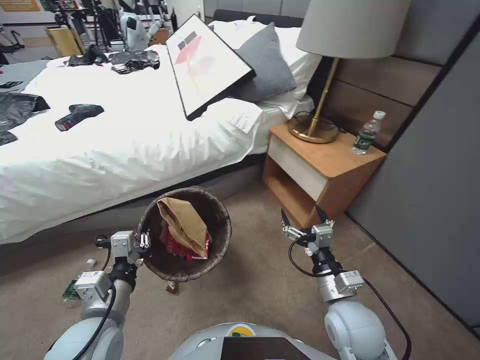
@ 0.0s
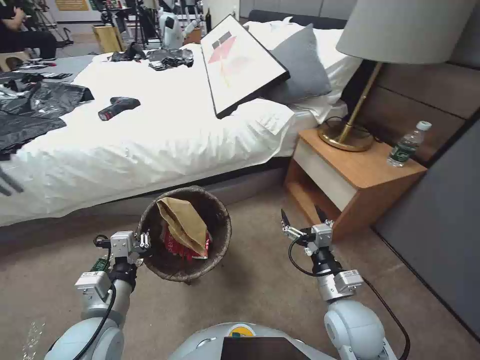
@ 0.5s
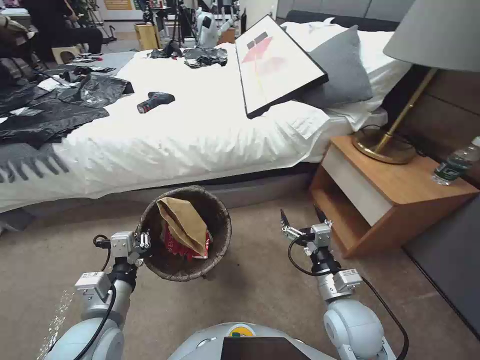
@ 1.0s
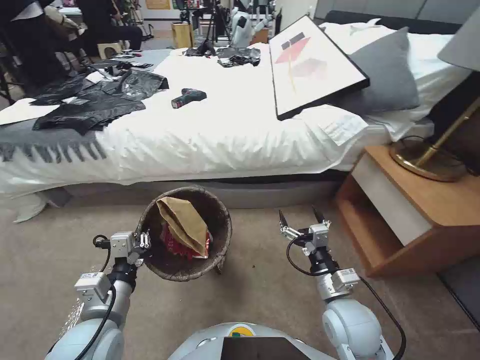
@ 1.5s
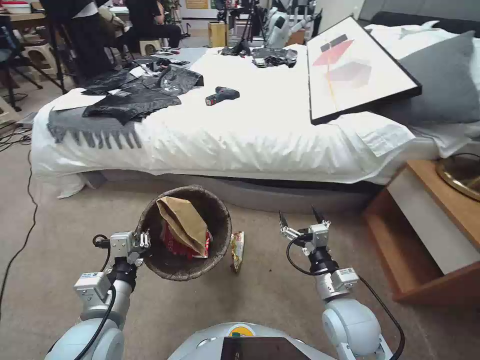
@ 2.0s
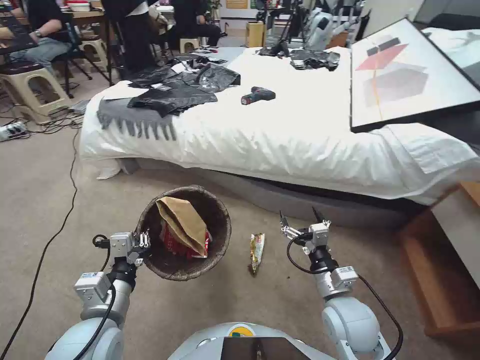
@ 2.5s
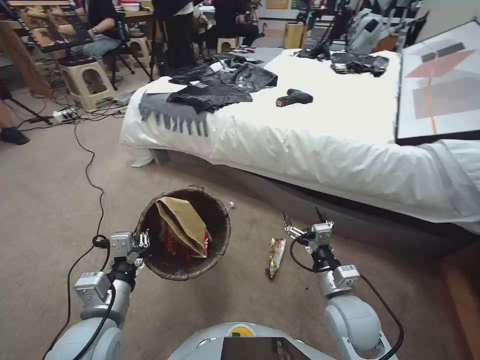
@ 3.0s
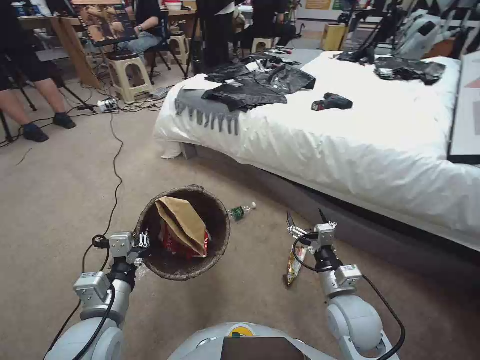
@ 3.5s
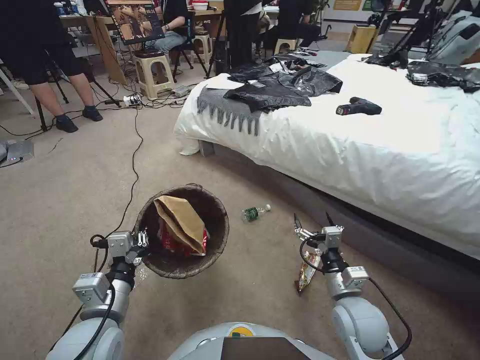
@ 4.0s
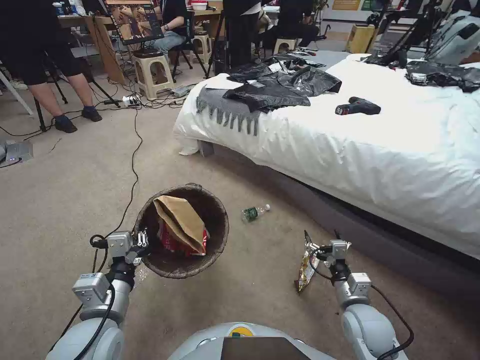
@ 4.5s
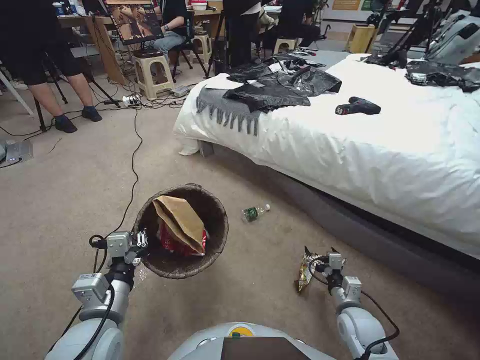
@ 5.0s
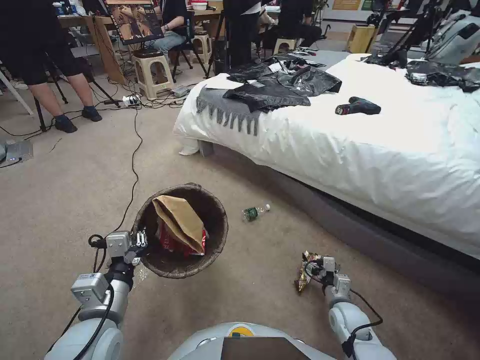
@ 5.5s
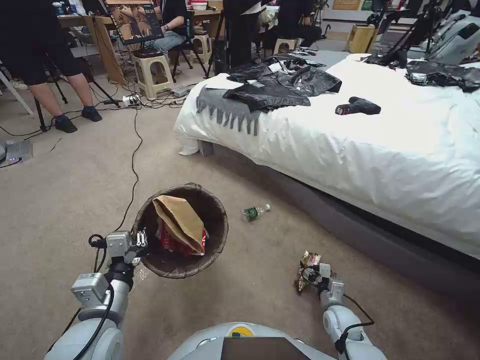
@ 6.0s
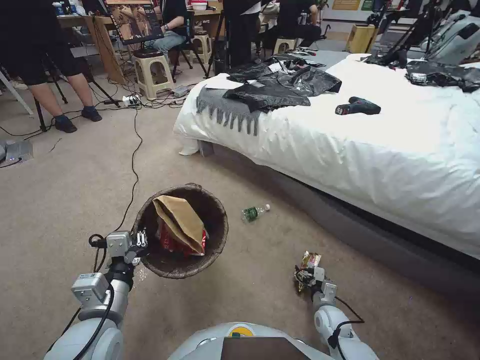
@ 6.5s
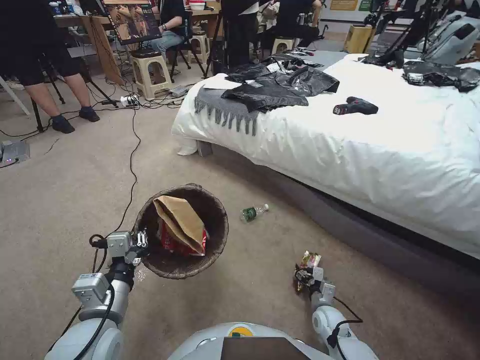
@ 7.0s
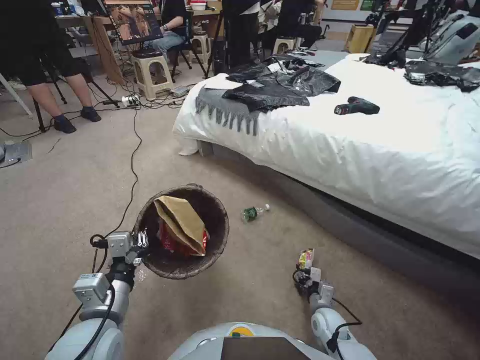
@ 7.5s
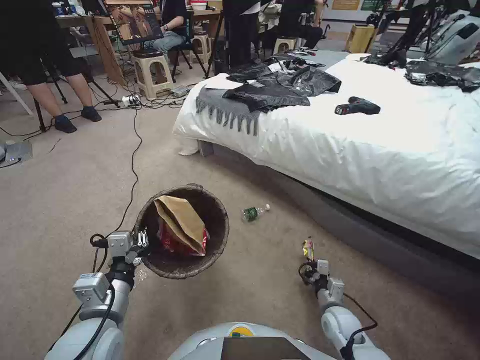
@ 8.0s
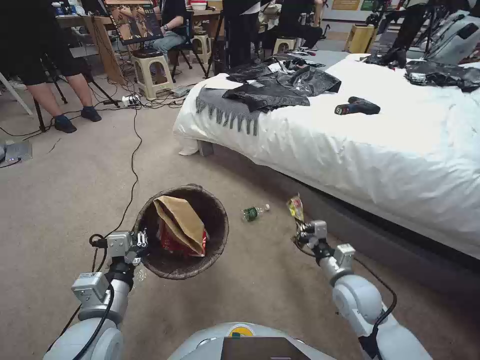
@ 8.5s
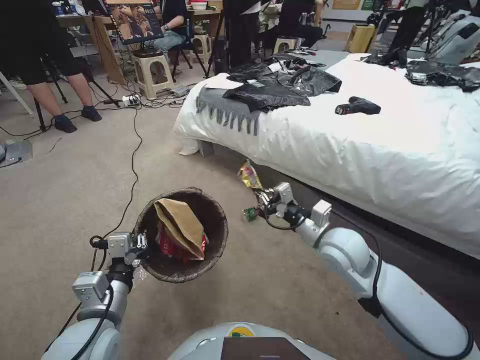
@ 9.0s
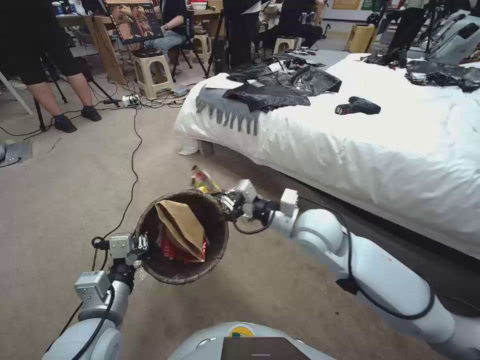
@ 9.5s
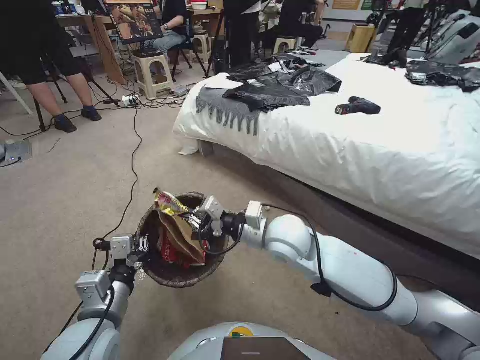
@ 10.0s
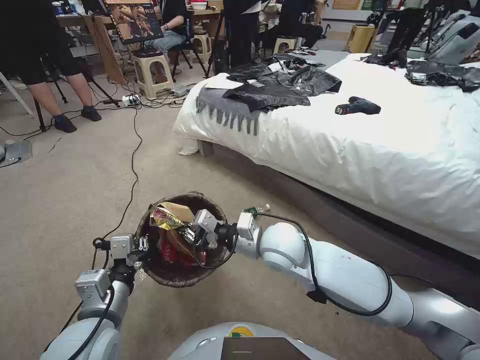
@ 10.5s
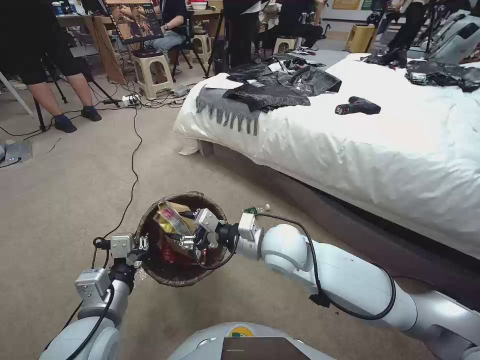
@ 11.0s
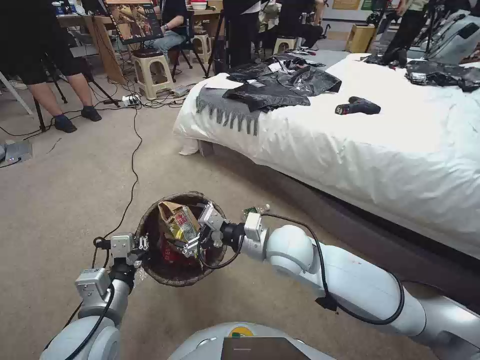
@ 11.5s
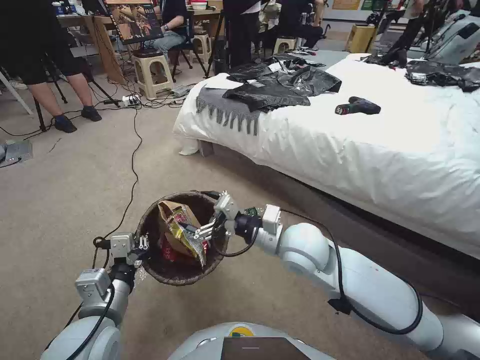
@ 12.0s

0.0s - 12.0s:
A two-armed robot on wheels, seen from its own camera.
Task of the whole recording: Pick up the trash bin, then pick up the garbage from the floor and place it into the trash bin.
4.0s - 6.0s: The right gripper heads downward, covering approximately 20 cm.
6.0s - 8.0s: The right gripper closes its fingers.
8.0s - 10.0s: The right gripper is displaced upward and to the left by some 40 cm.
10.0s - 12.0s: The right gripper opens its fingers.

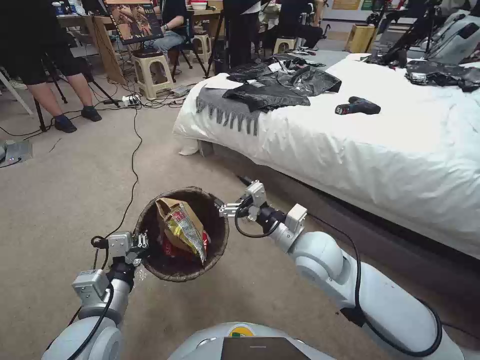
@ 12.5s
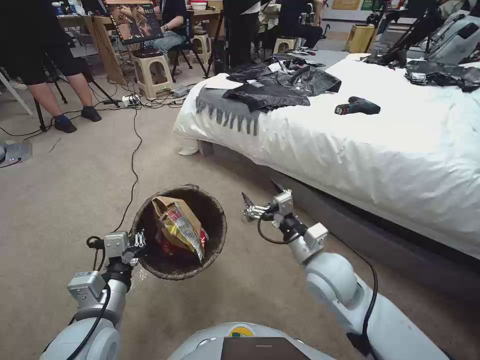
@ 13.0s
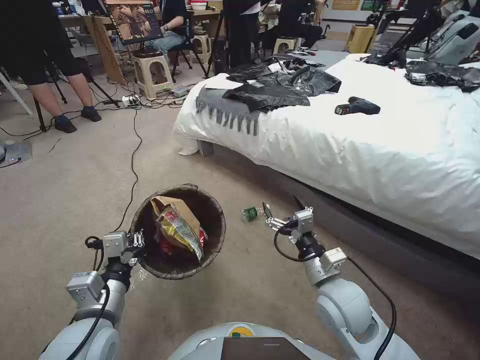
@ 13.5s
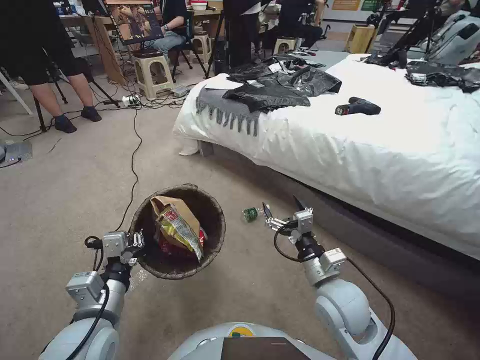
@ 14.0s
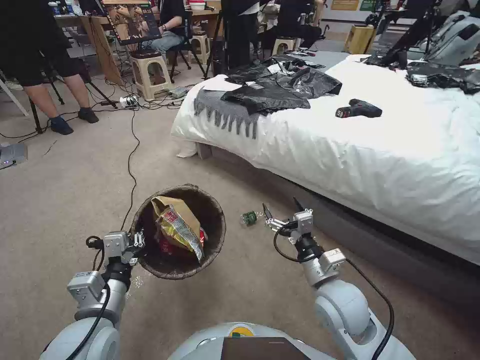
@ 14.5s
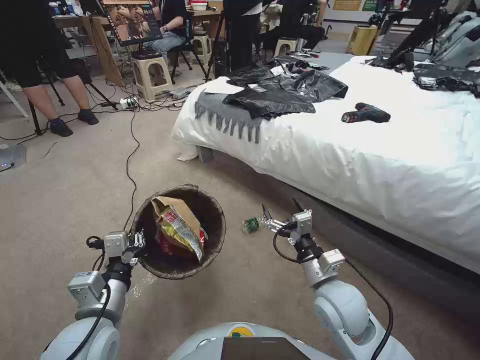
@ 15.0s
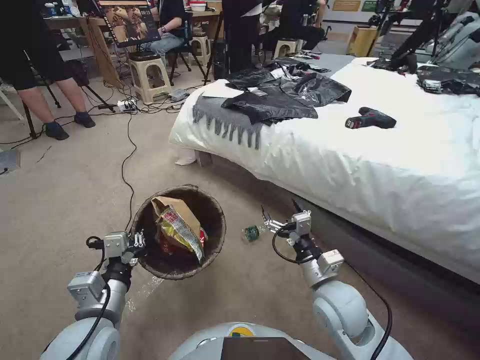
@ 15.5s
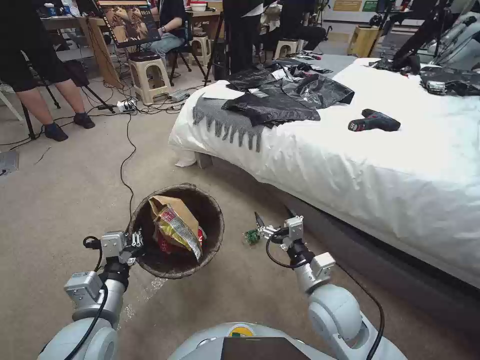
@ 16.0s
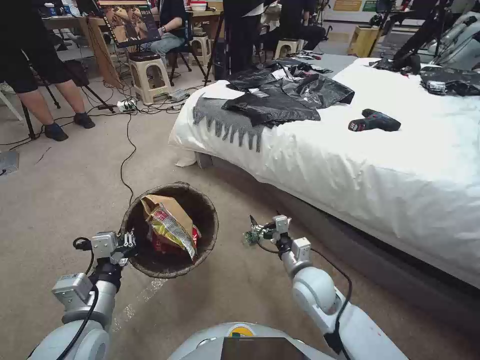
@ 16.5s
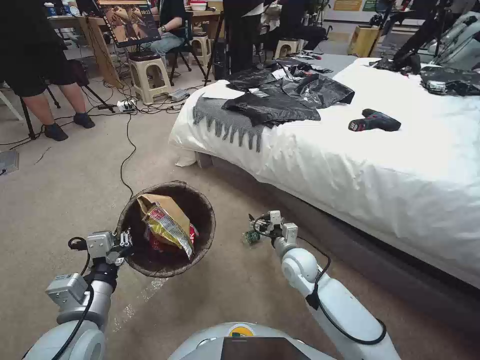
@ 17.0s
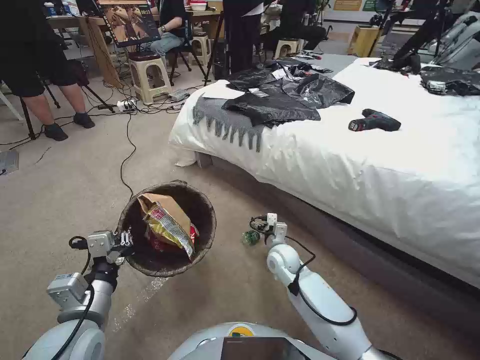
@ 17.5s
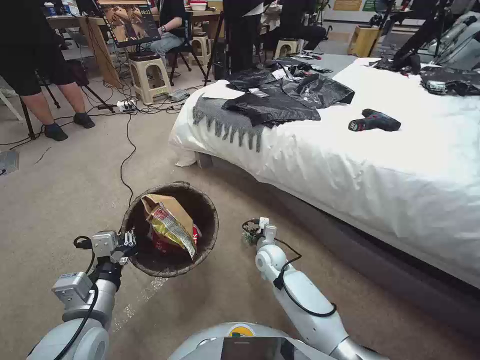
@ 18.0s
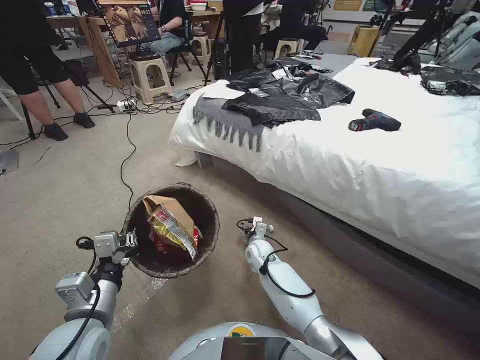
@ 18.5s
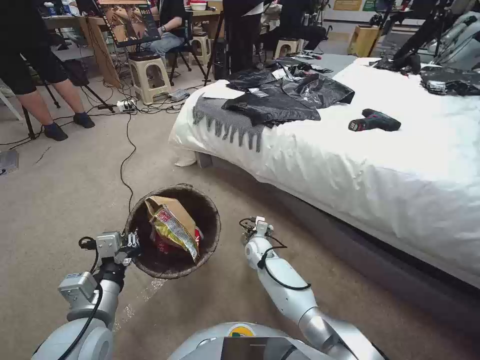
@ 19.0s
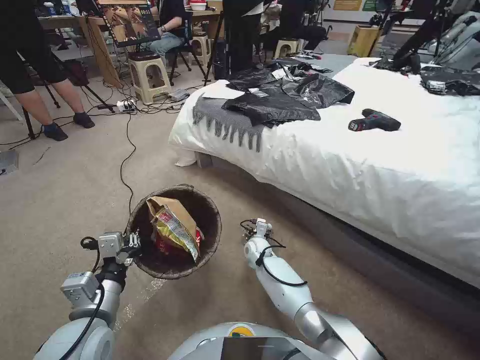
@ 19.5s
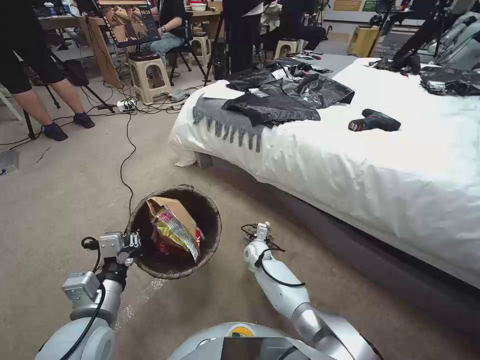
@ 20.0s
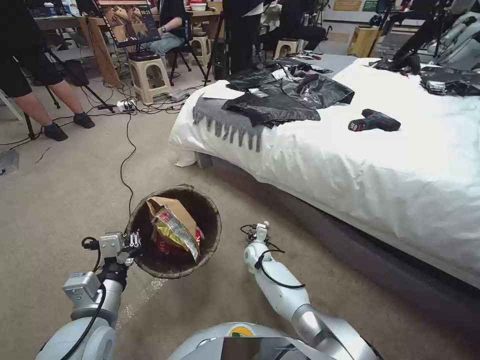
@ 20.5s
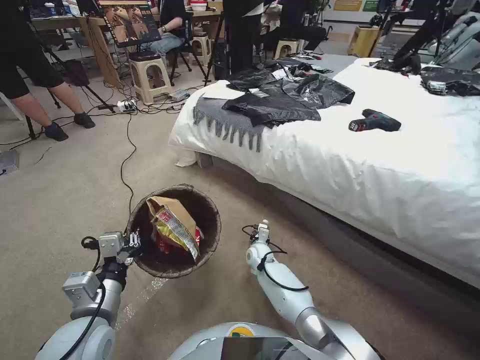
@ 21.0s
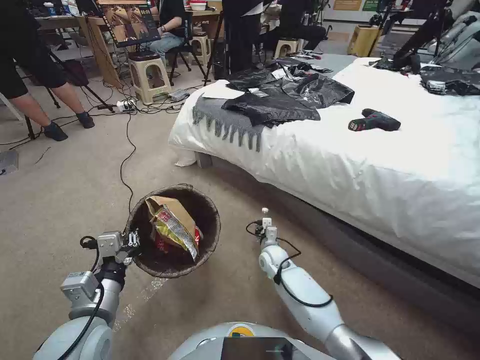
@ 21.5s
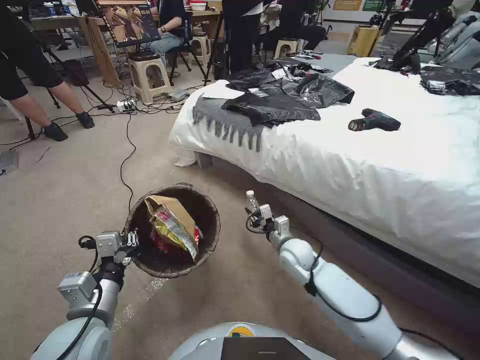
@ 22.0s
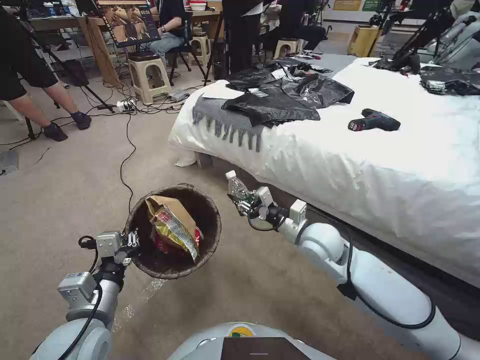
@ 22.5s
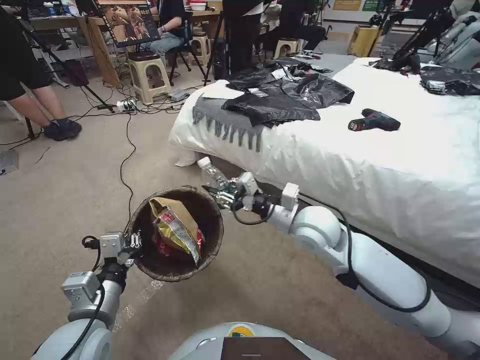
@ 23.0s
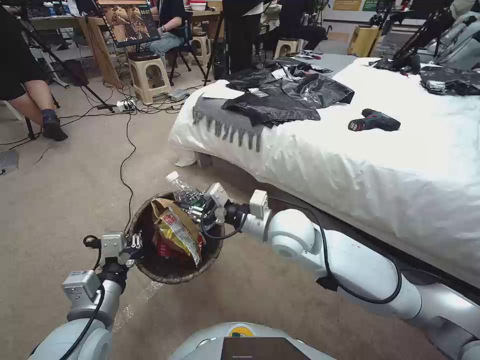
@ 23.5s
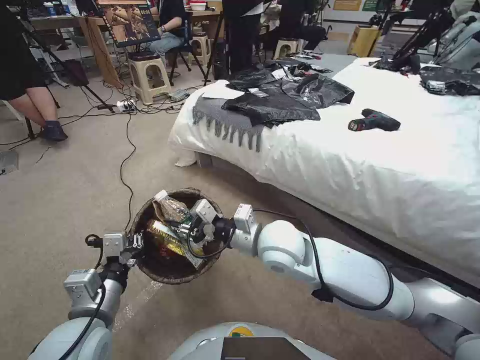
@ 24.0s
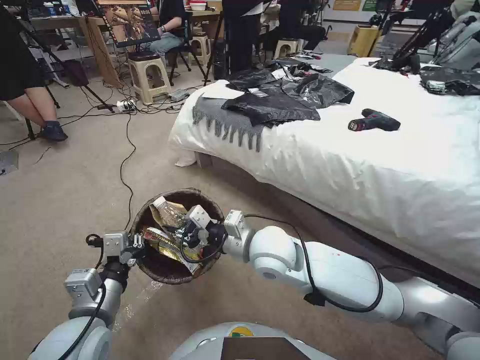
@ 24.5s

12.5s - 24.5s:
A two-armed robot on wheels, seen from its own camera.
Task of the whole recording: Pick up the trash bin, then pick up the garbage from the floor and place it into the trash bin.
12.5s - 14.5s: The right gripper travels downward, backward and to the right by some 10 cm.
14.5s - 16.5s: The right gripper shifts some 5 cm downward.
16.5s - 18.5s: The right gripper goes some 20 cm forward, downward and to the left.
18.5s - 20.5s: The right gripper is displaced downward by some 5 cm.
20.5s - 22.5s: The right gripper travels upward and to the right by about 30 cm, and closes up.
22.5s - 24.5s: The right gripper goes about 15 cm to the left and upward.

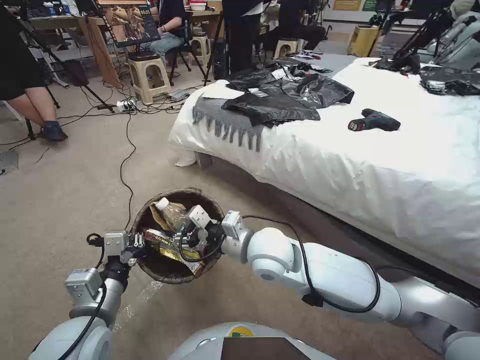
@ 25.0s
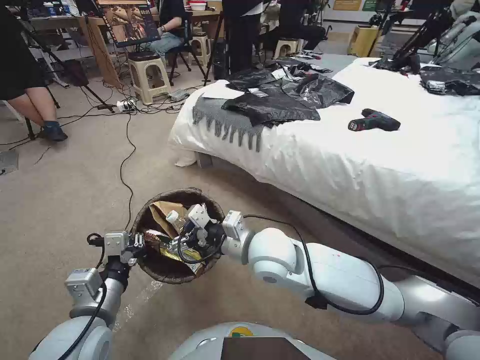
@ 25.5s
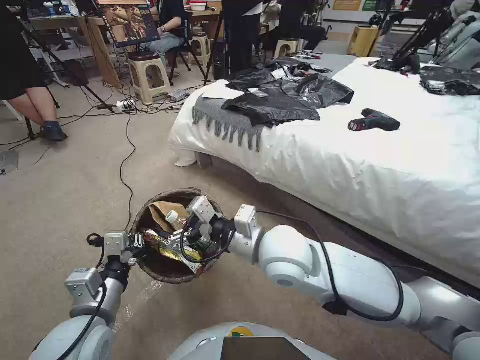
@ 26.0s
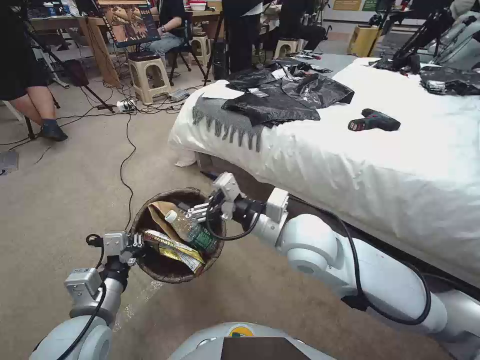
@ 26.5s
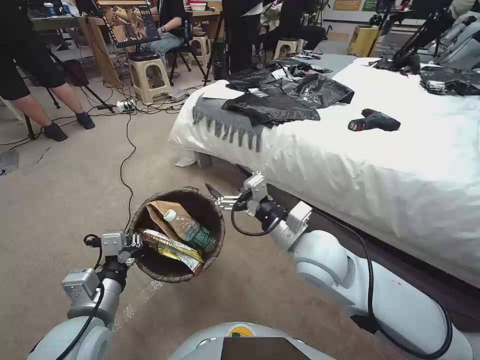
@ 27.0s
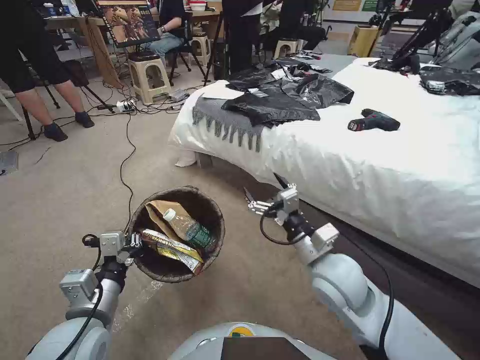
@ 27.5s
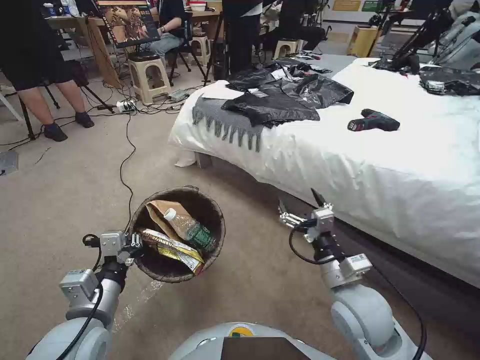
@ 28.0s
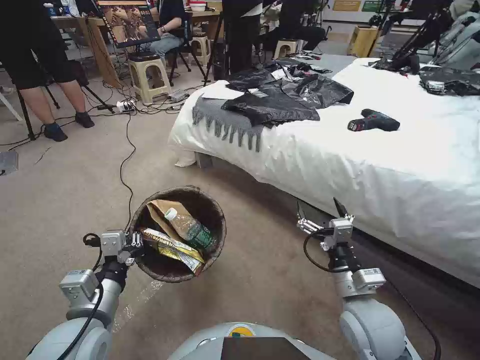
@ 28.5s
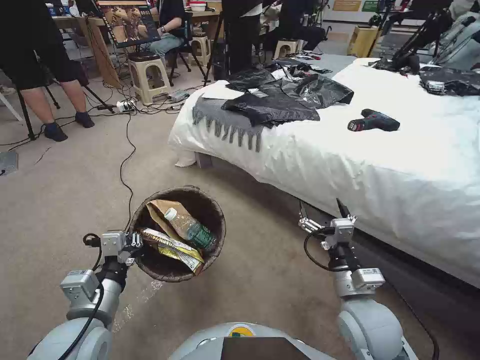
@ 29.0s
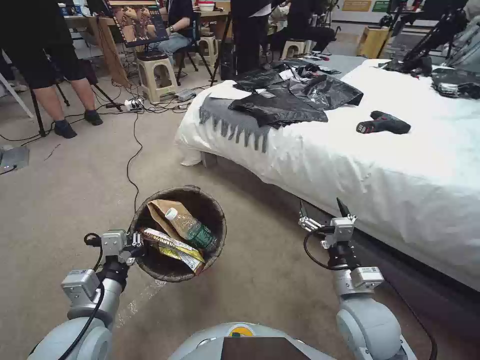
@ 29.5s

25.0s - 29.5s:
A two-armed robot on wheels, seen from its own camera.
Task of the whole recording: Pick up the trash bin, then pick up the garbage from the floor and place it into the trash bin.
25.0s - 27.0s: The right gripper is displaced to the right by approximately 10 cm, and opens up.
27.0s - 29.5s: The right gripper goes roughly 15 cm downward, to the right and backward.
